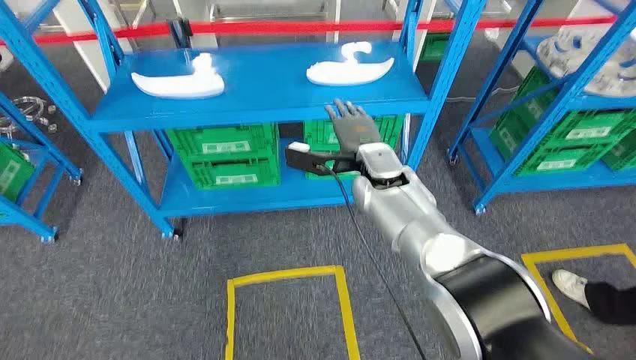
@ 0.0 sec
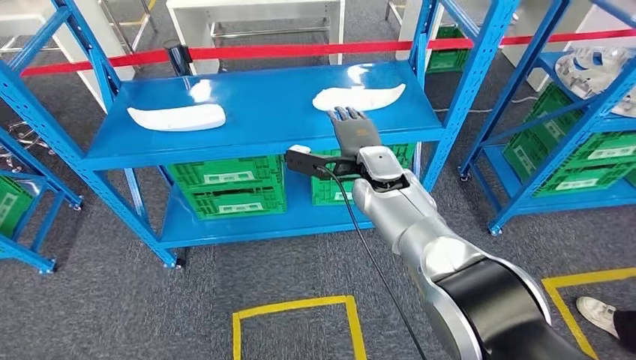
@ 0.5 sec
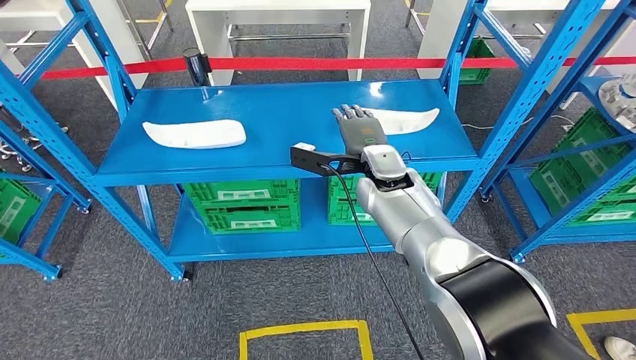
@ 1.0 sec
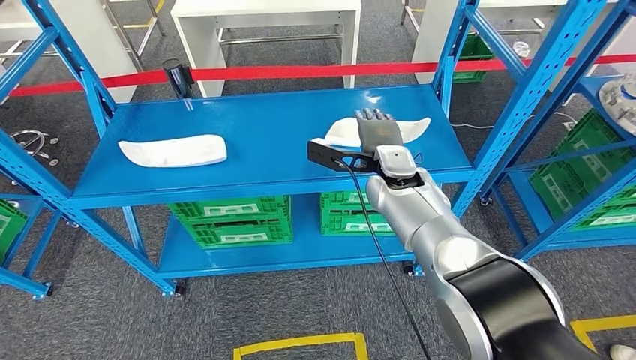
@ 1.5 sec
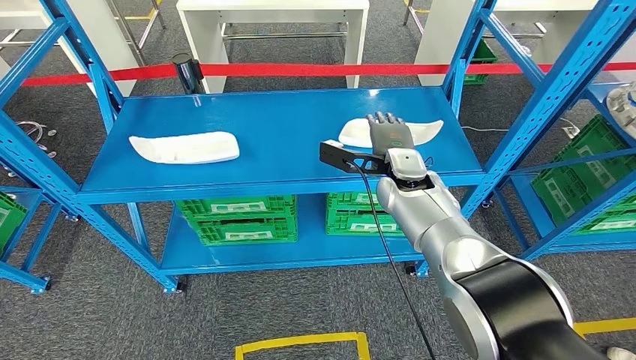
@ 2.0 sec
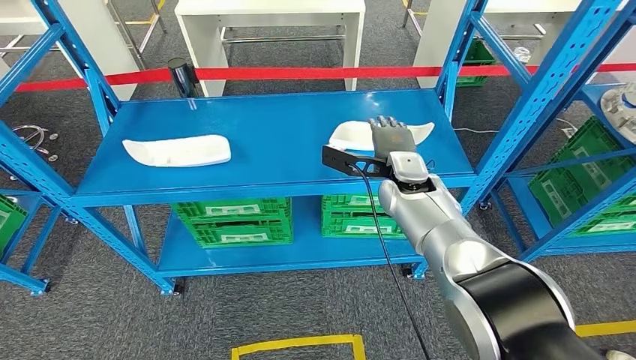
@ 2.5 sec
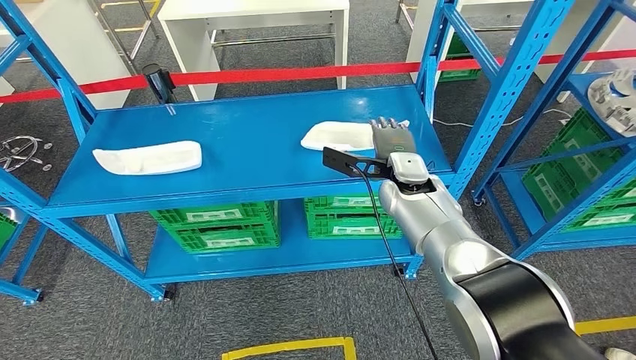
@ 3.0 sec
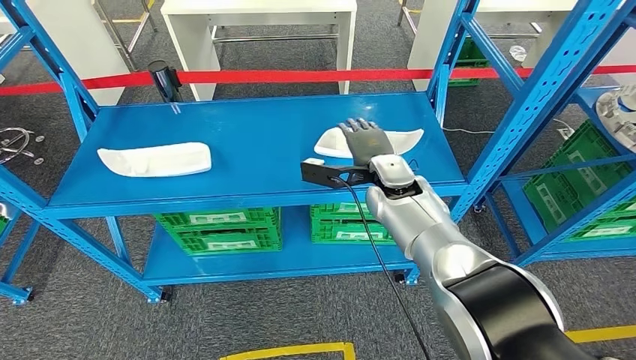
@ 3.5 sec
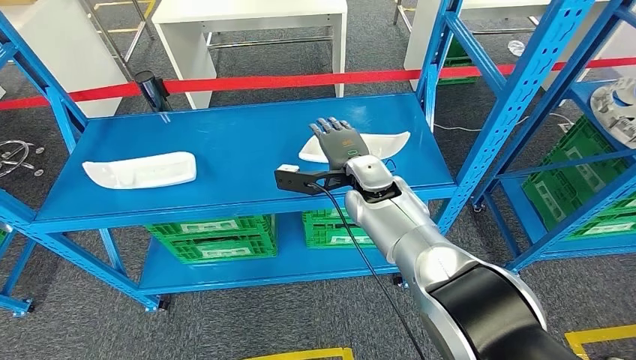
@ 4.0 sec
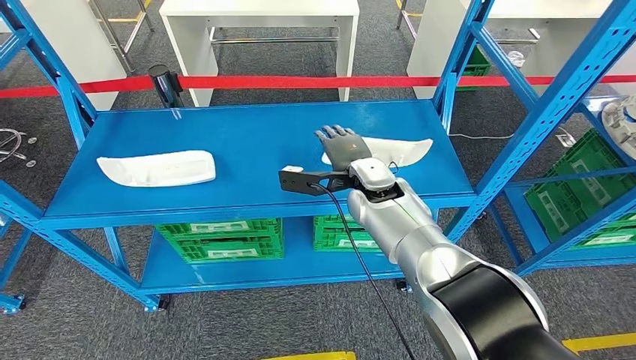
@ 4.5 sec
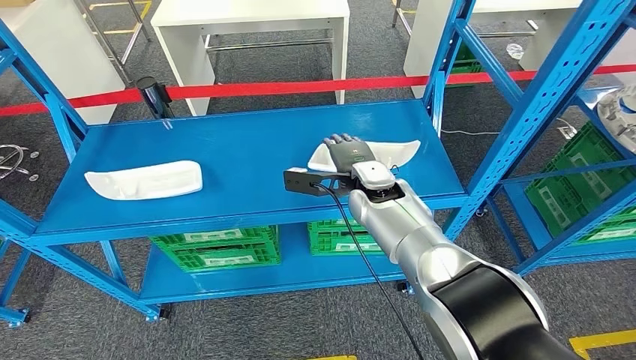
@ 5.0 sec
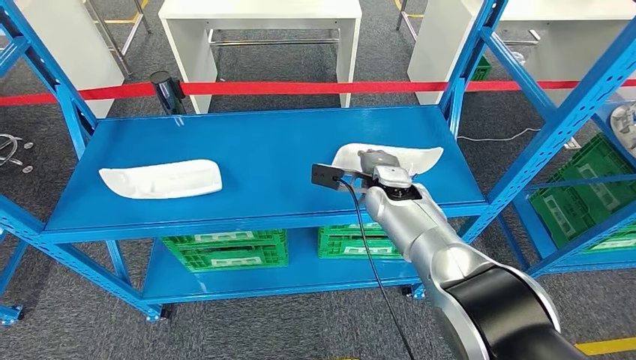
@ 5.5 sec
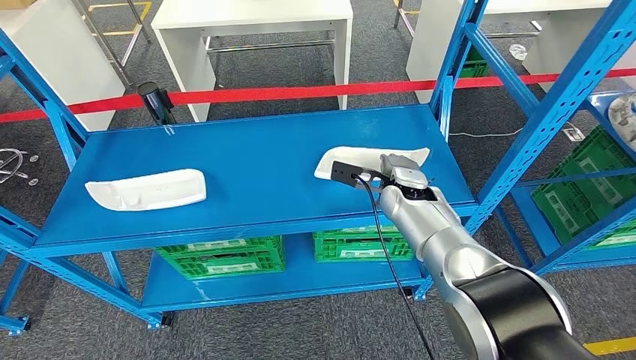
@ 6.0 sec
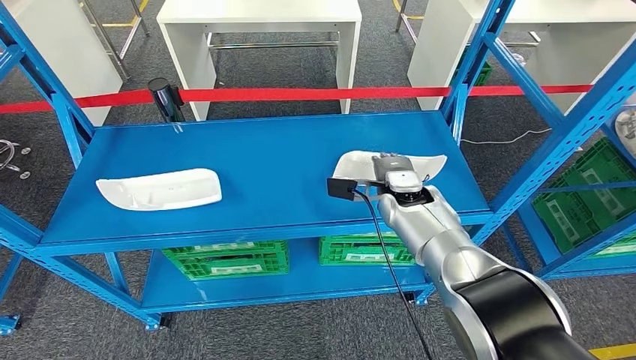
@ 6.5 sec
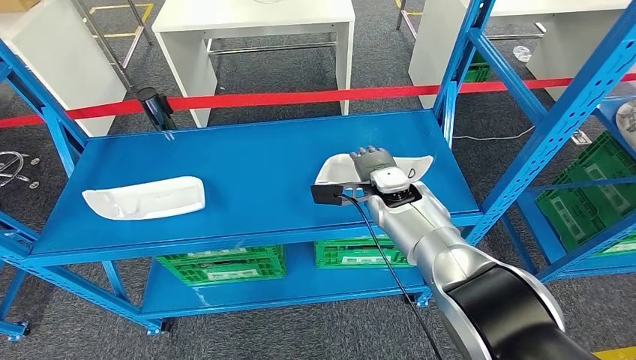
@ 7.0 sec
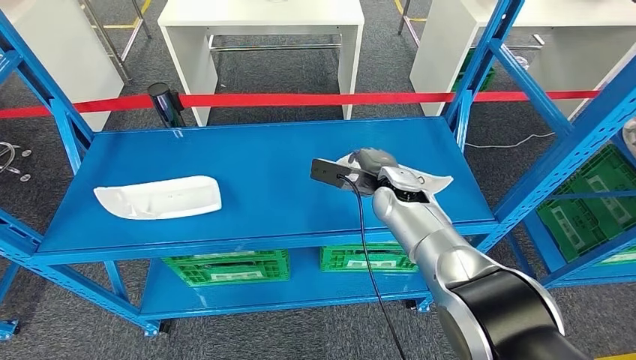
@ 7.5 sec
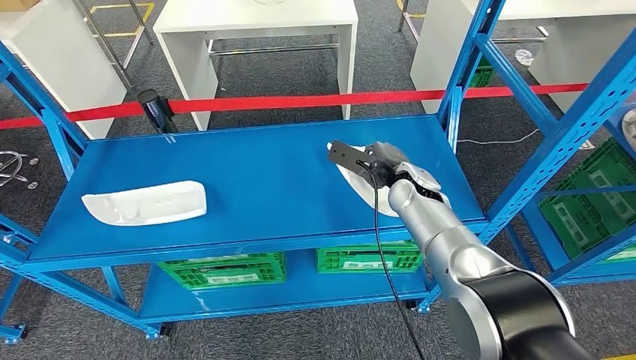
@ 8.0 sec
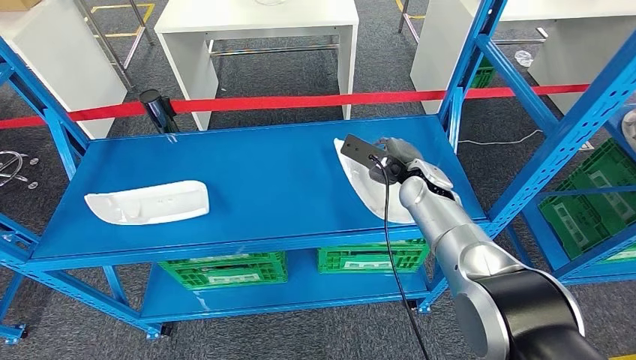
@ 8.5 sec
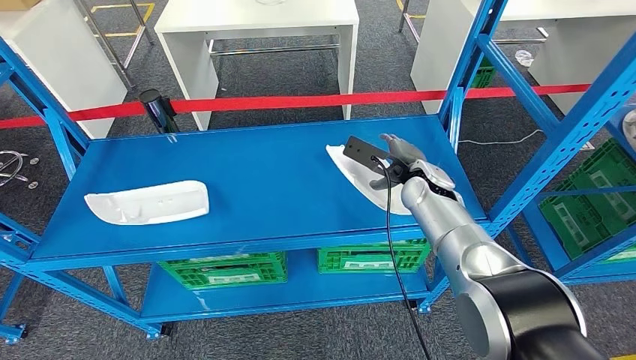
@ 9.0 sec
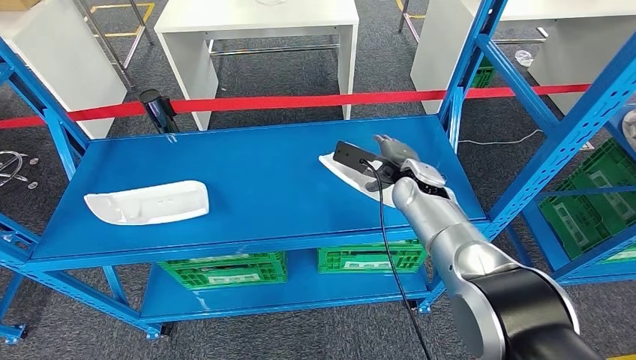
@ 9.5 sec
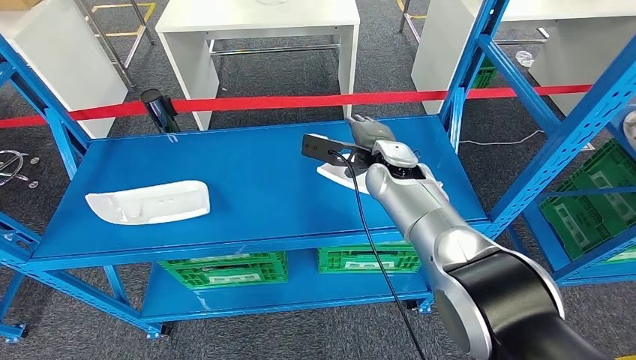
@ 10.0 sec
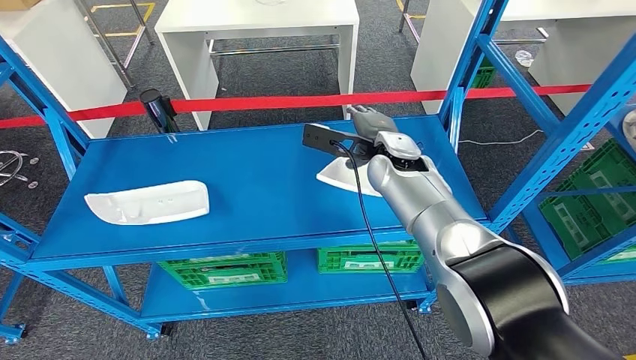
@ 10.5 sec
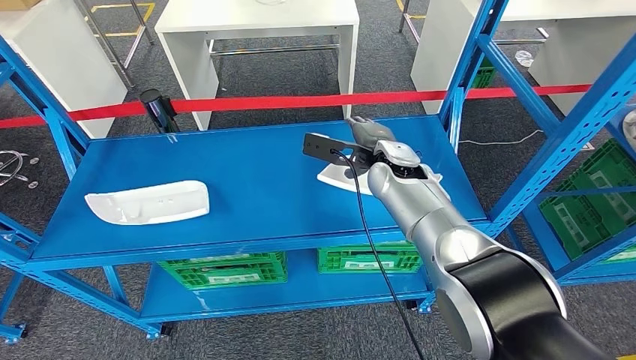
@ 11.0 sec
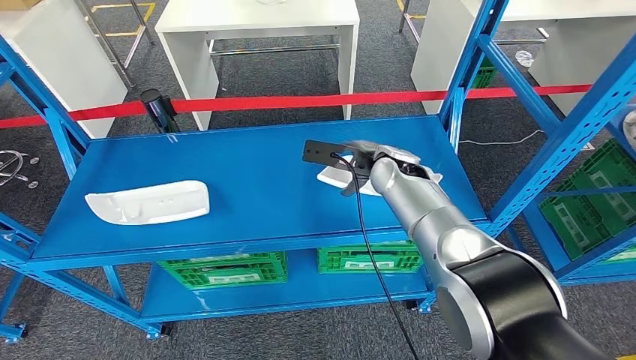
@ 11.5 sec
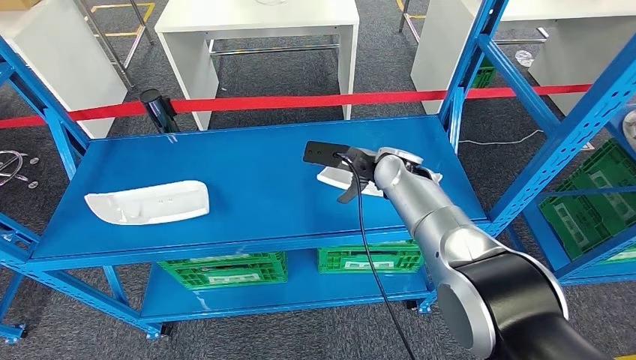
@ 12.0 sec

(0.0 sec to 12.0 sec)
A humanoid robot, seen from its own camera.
8.0 sec - 10.0 sec: The right hand changes place by approximately 5 cm.

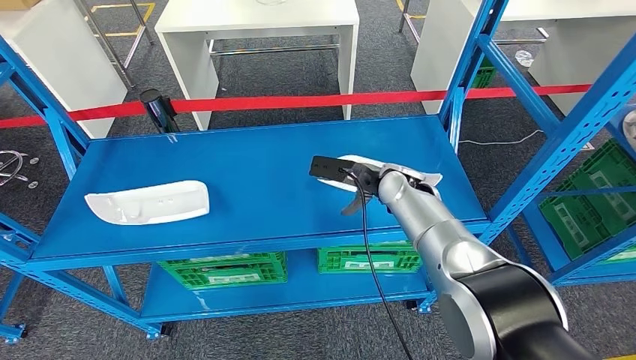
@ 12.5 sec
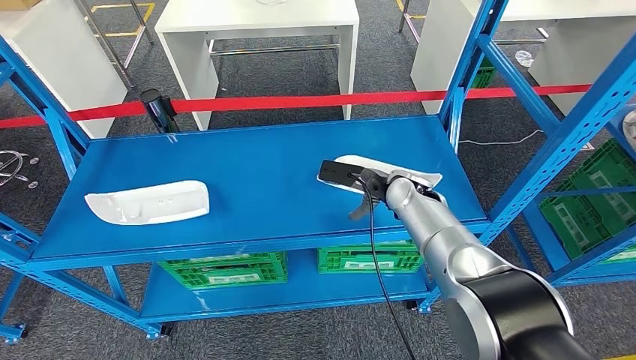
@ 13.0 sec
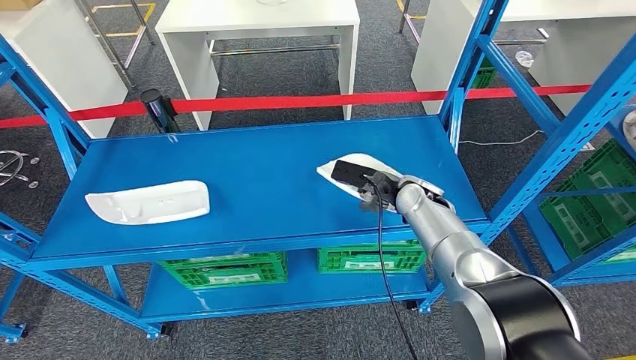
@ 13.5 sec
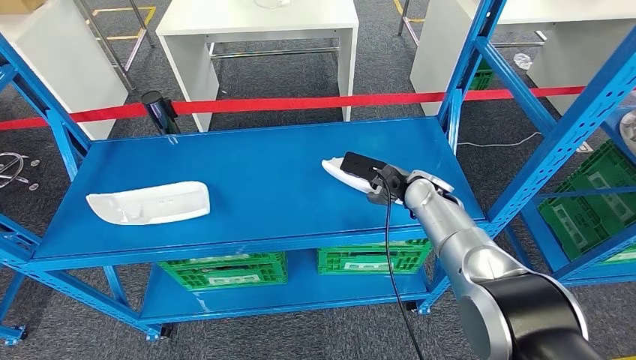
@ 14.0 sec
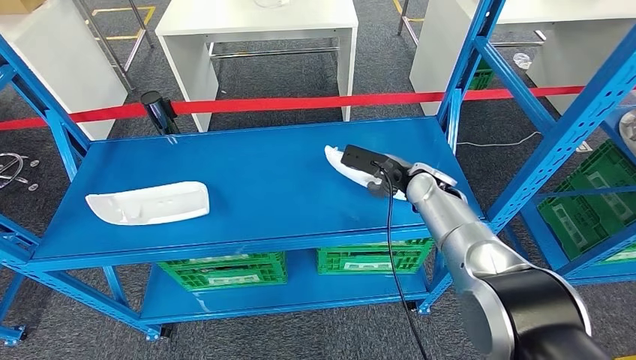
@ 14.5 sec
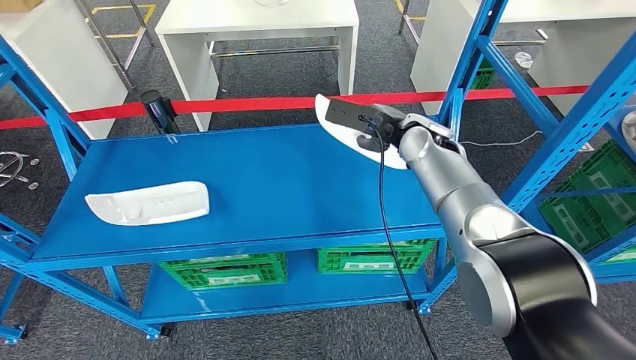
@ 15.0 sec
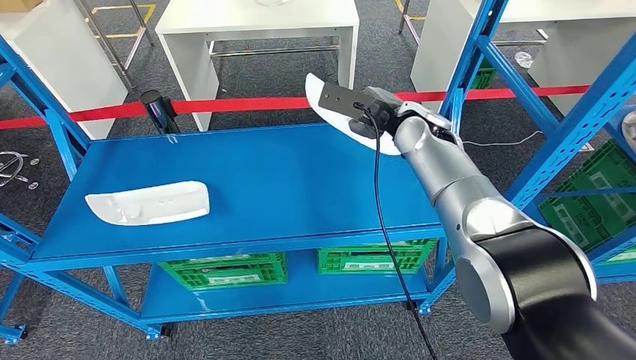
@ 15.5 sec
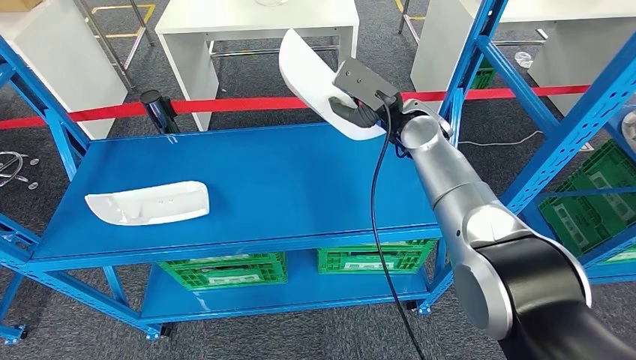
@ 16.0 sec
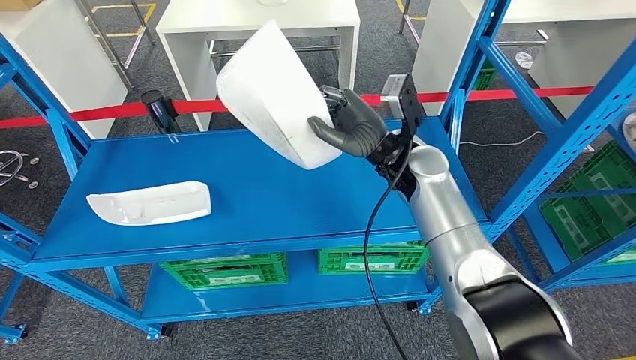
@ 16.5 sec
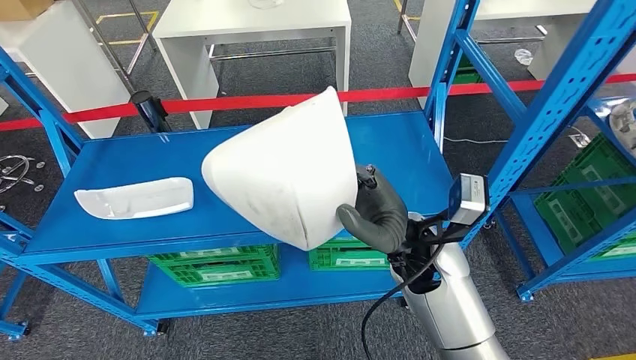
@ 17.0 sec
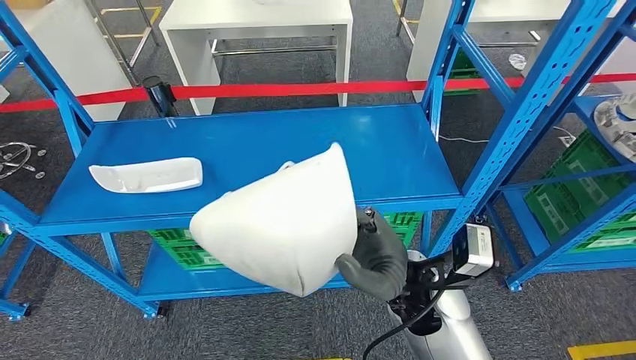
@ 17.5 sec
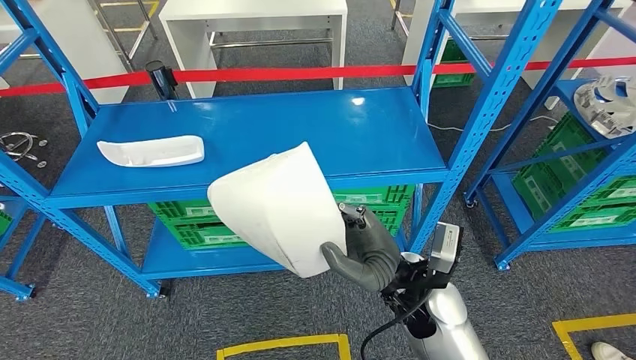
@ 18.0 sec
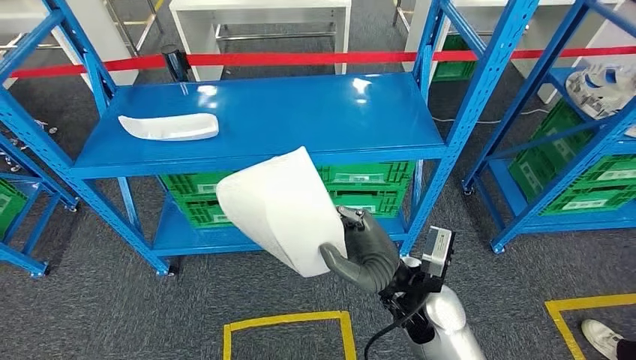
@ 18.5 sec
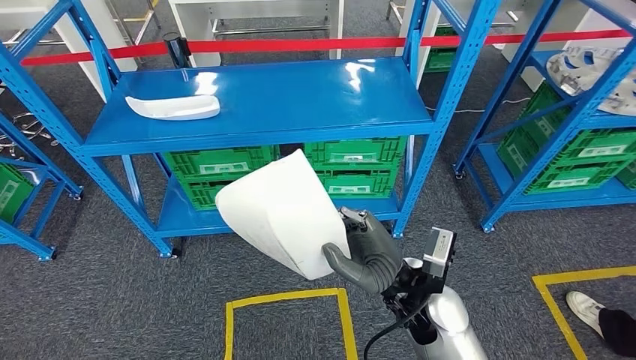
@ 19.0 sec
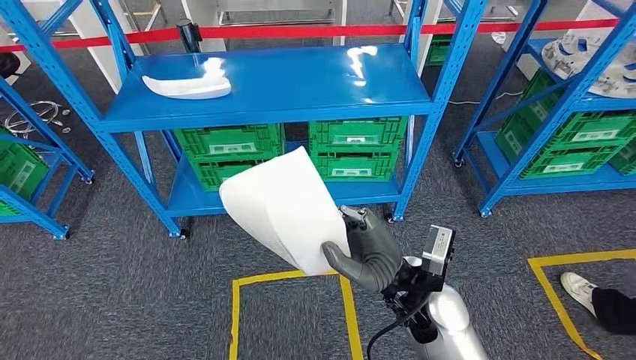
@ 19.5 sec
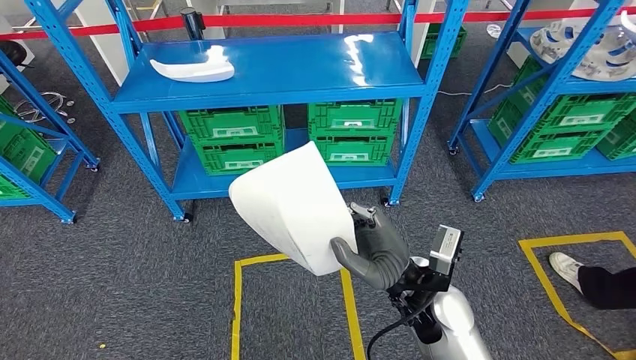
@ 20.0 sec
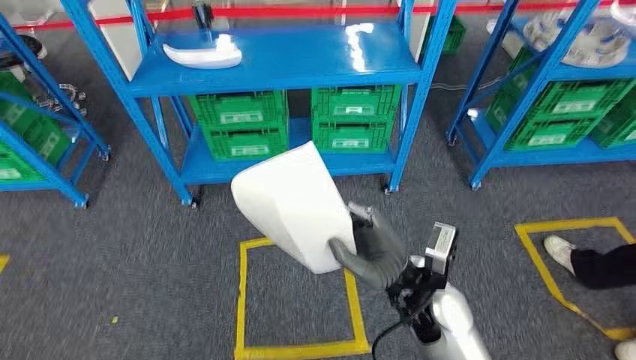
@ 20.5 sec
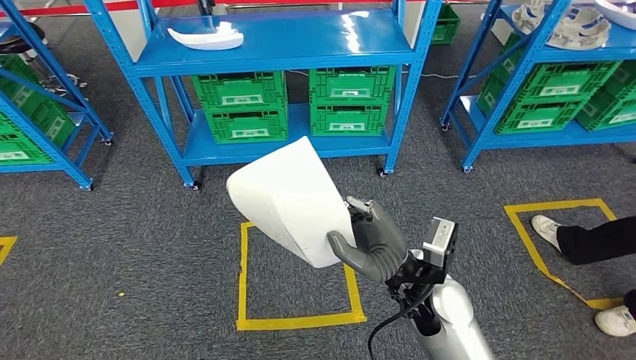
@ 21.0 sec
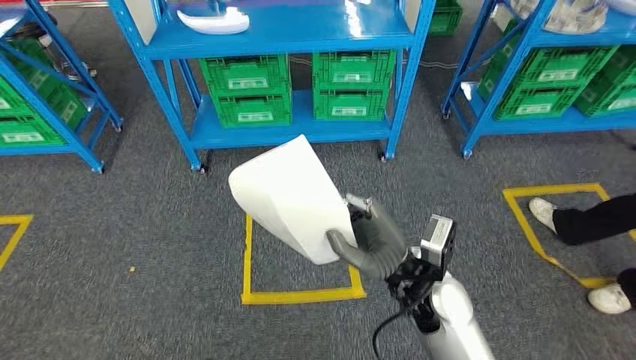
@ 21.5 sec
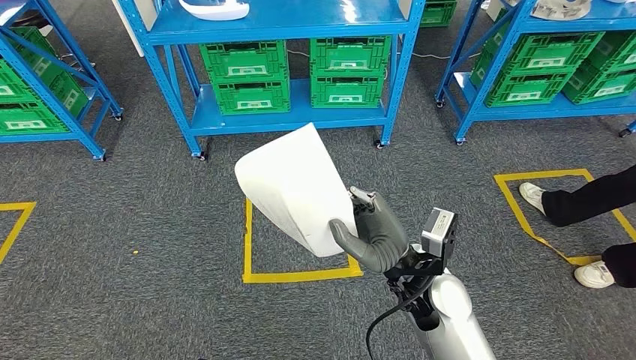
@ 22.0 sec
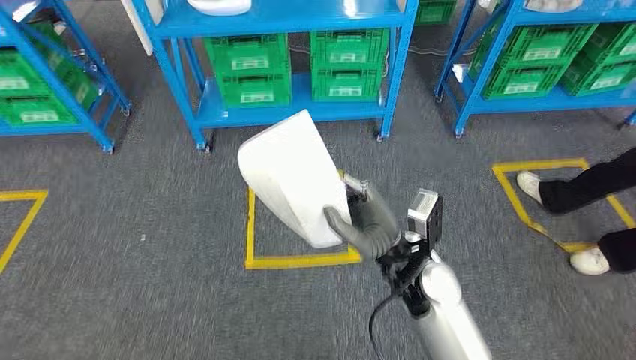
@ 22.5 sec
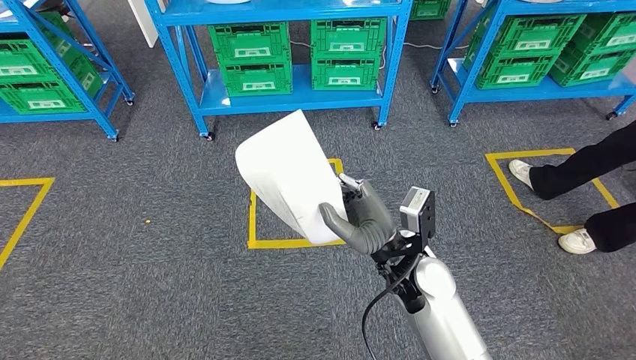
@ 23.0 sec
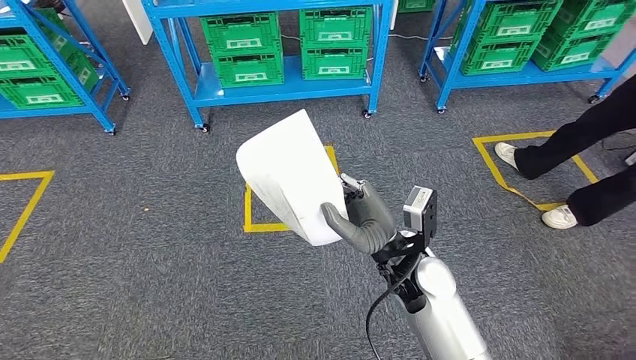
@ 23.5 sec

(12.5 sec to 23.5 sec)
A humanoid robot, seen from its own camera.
Step, 12.5 sec - 18.5 sec: Pick up the small parts from the shelf.
12.5 sec - 14.5 sec: The right hand shifts roughly 5 cm to the right.
14.5 sec - 16.0 sec: The right hand heads upward, covering approximately 10 cm.
